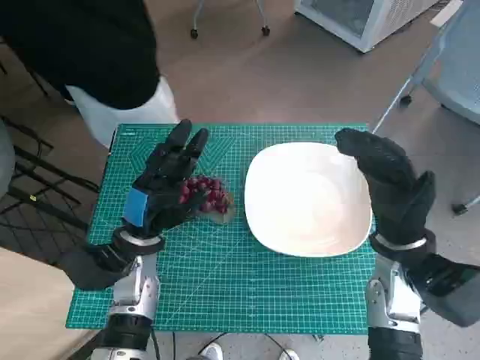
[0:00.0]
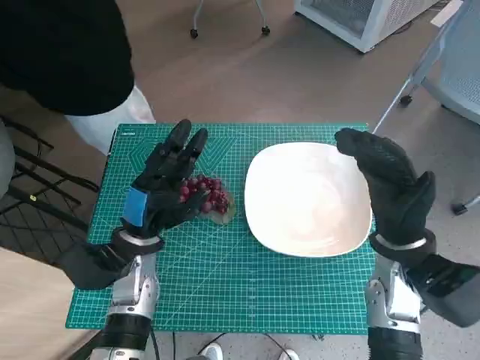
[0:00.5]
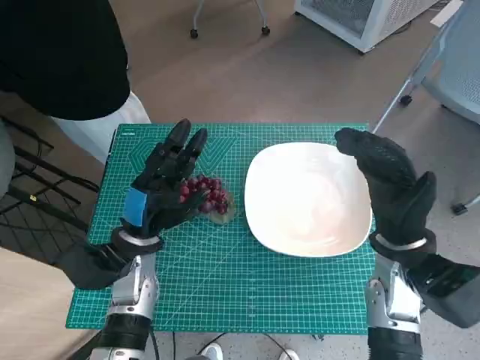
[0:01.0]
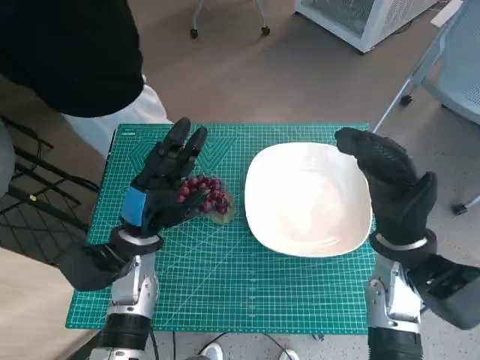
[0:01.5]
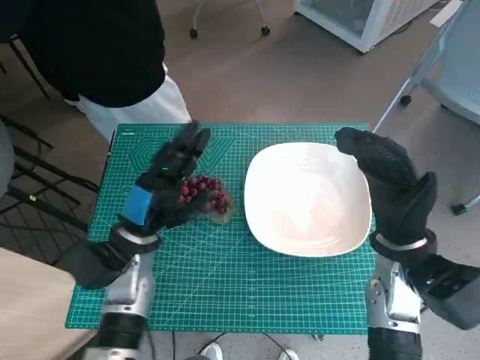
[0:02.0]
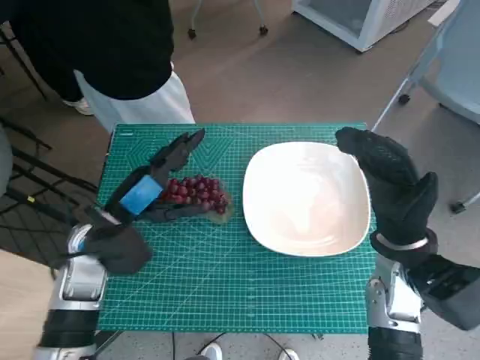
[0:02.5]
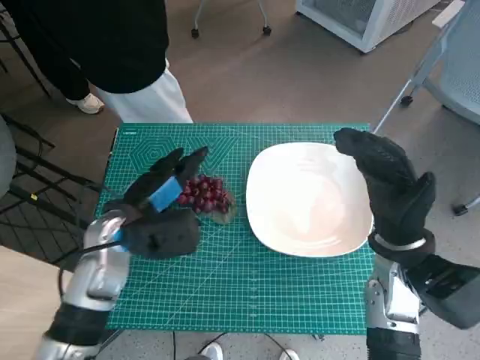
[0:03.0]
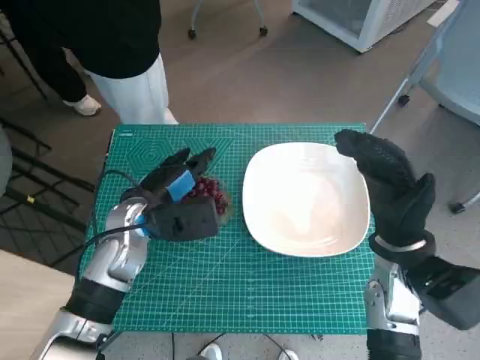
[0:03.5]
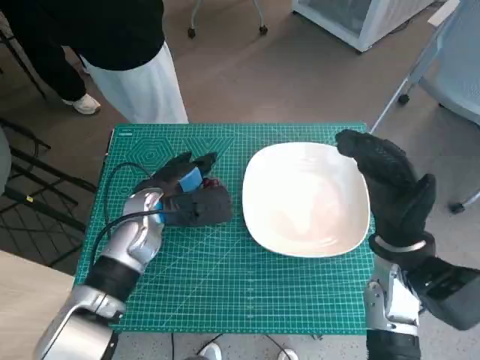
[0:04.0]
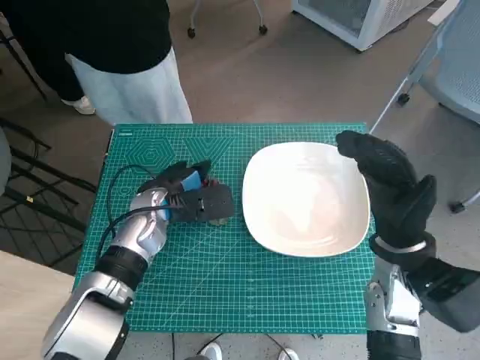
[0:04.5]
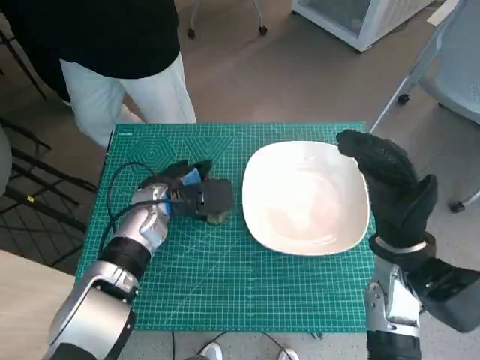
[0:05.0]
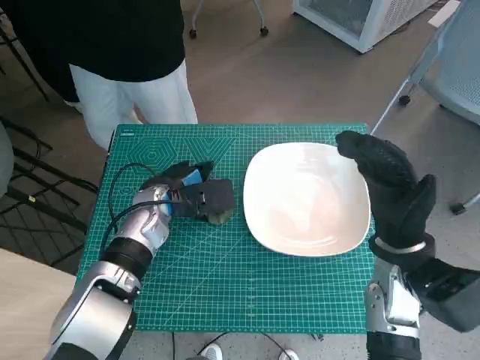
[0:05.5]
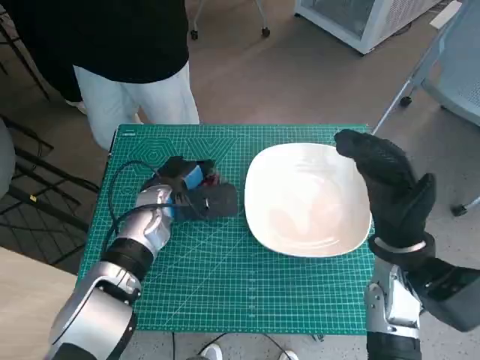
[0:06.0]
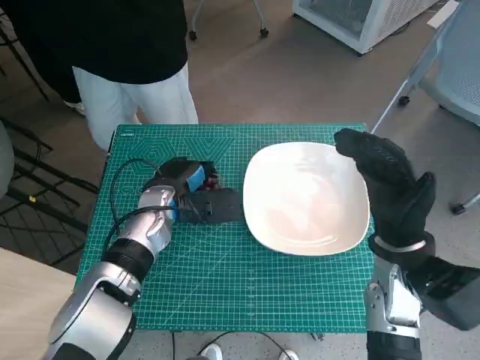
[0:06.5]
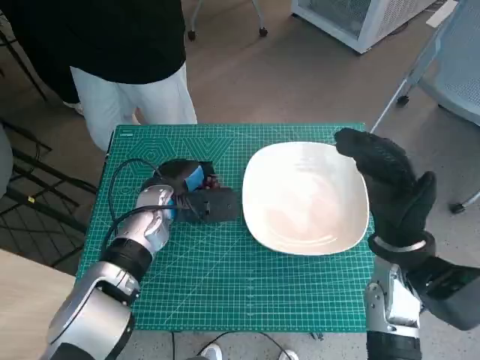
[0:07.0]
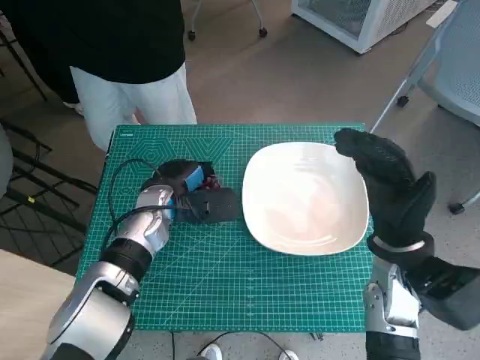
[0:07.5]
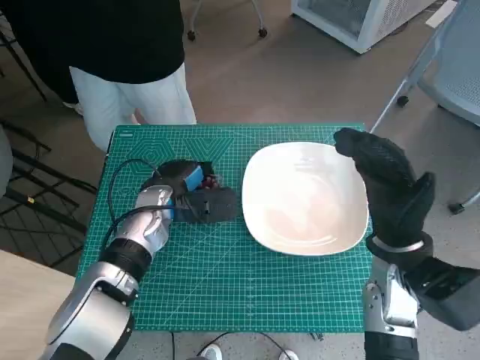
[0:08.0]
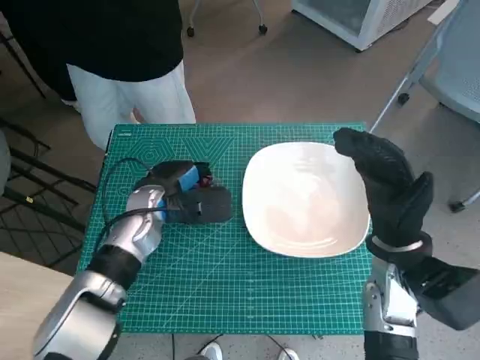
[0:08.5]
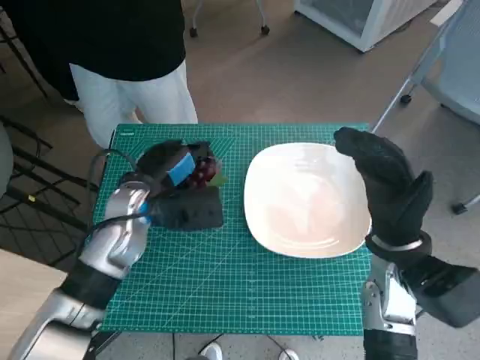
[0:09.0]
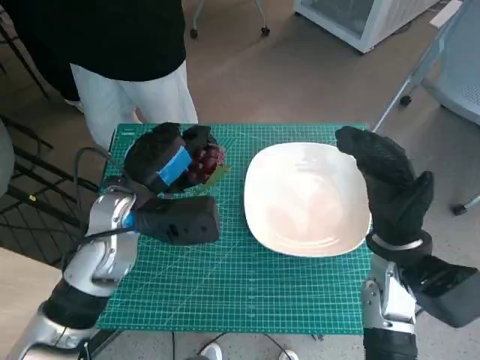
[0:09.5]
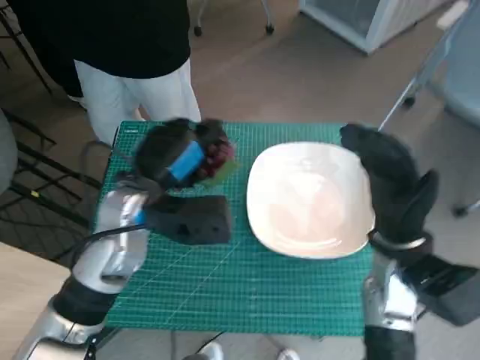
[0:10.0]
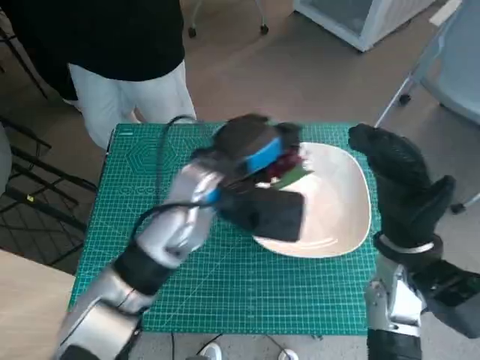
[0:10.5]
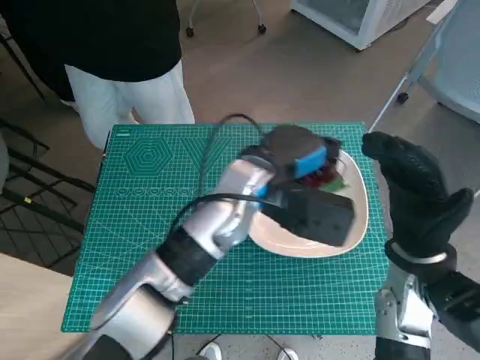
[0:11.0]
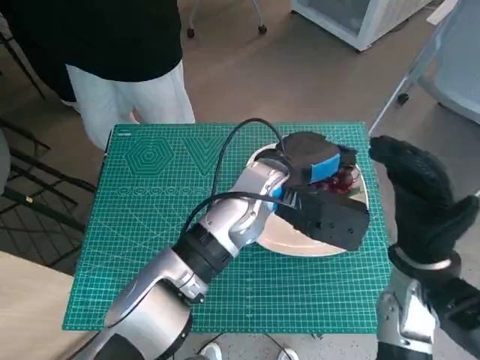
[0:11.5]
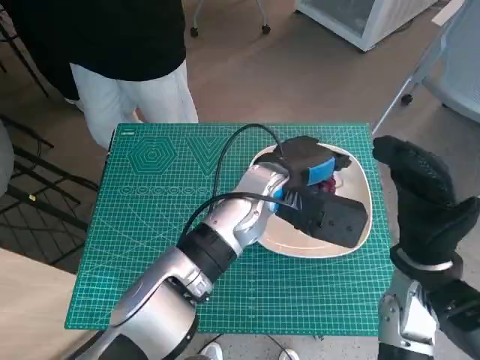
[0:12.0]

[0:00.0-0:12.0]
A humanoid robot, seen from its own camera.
Task of the whole recording: Pick up the grapes and put them on the plate.
Step, 0:00.0 to 0:06.5: Grasp the grapes with left hand.
0:02.0 to 0:04.0: The left hand moves forward, about 5 cm.
0:04.0 to 0:08.0: The hands move only a little.
0:08.0 to 0:10.0: The left hand is displaced upward and backward by some 10 cm.
0:10.0 to 0:12.0: The left hand heads to the right, covering roughly 15 cm.

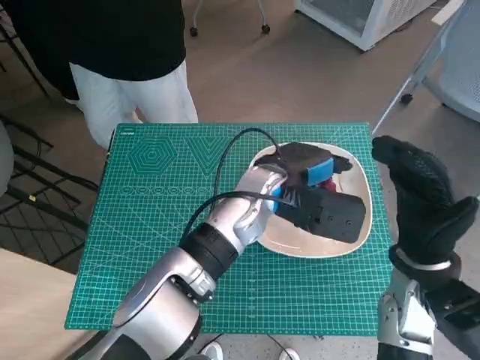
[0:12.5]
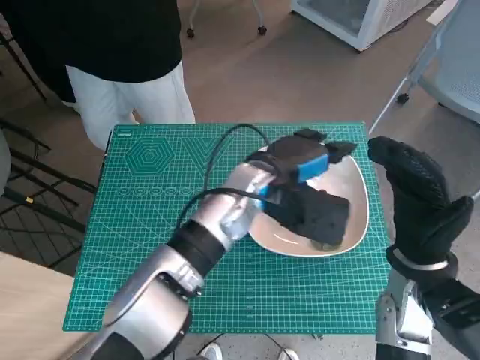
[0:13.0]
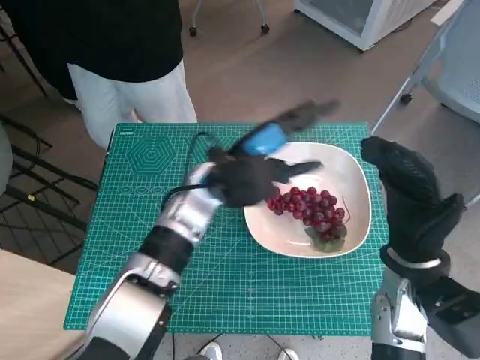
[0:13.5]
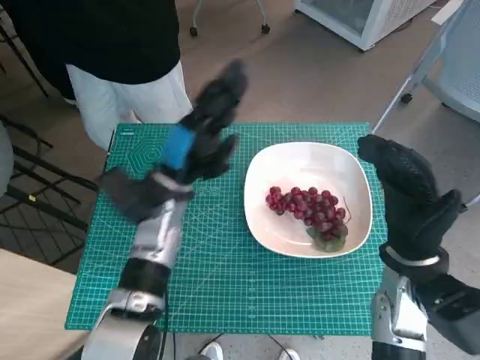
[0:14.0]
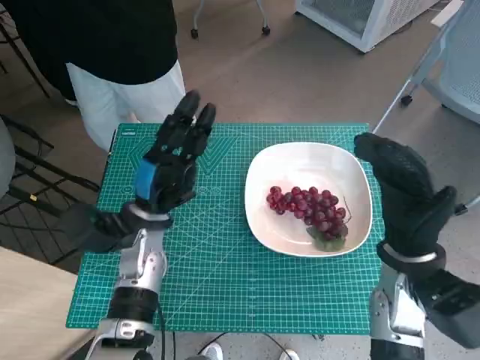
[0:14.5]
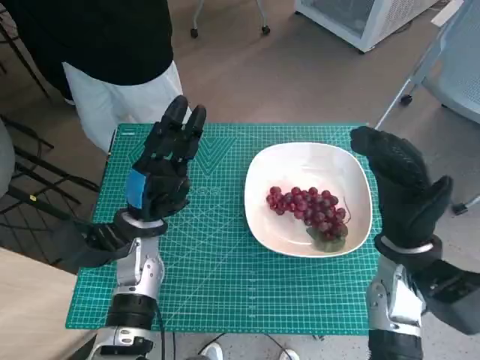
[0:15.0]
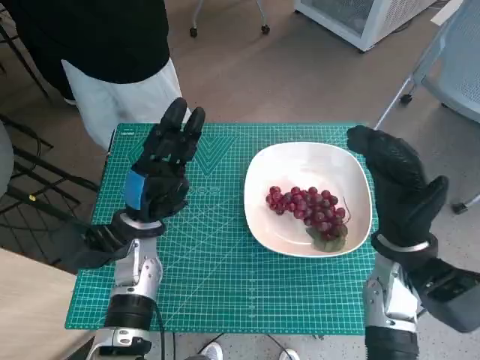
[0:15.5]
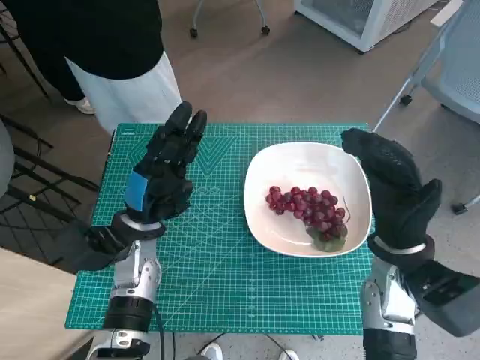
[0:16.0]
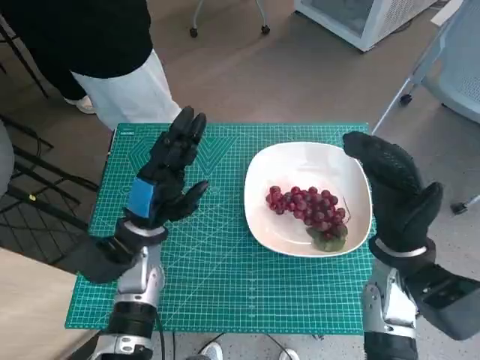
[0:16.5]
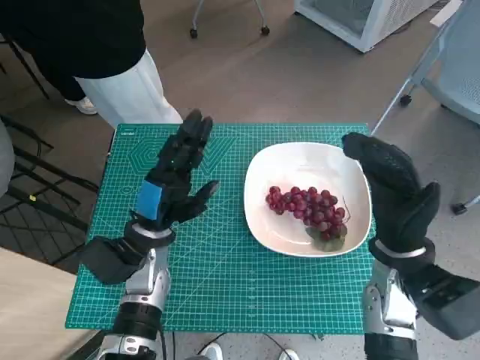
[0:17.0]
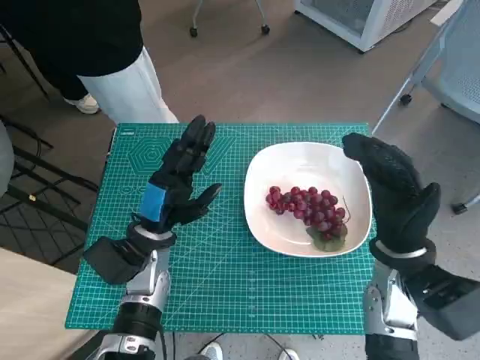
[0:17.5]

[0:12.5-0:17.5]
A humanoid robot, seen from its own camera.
Task of the whole recording: Pick up the grapes and put them on the plate.
0:12.5 to 0:15.0: The left hand goes approximately 20 cm to the left and downward.
0:15.0 to 0:17.5: There are only small adjustments of the hands.

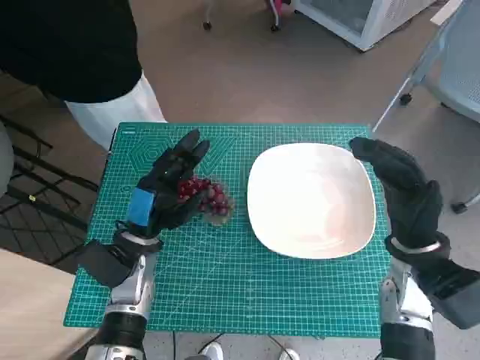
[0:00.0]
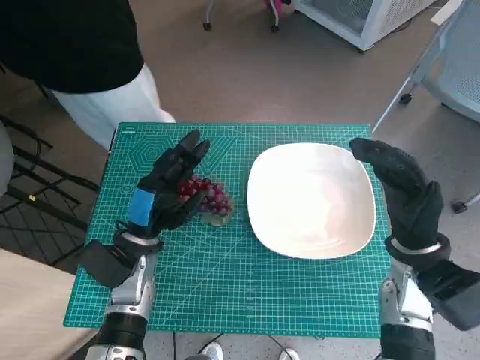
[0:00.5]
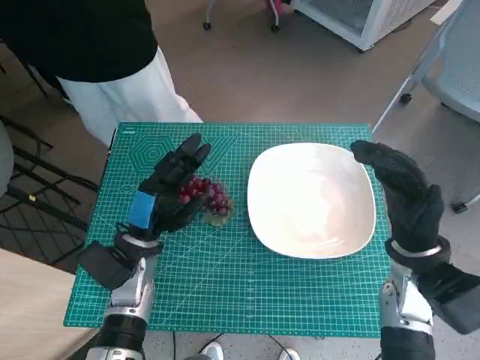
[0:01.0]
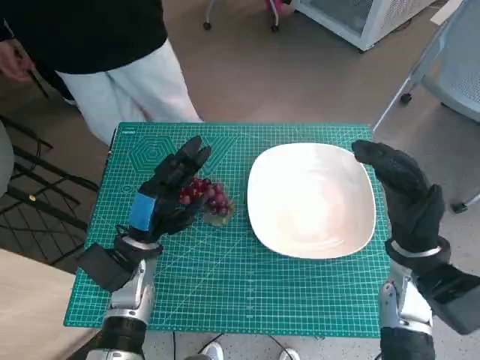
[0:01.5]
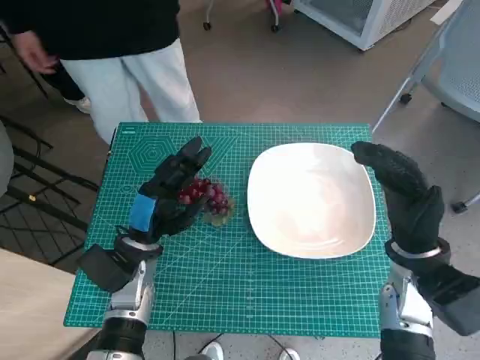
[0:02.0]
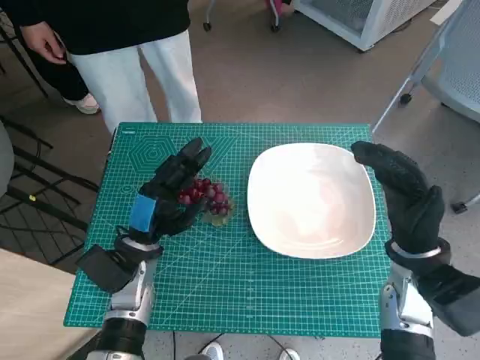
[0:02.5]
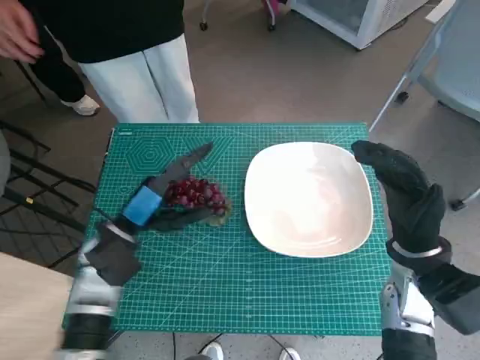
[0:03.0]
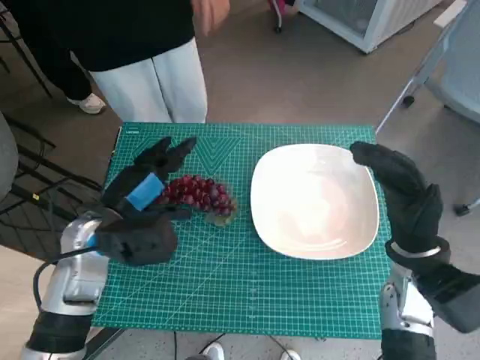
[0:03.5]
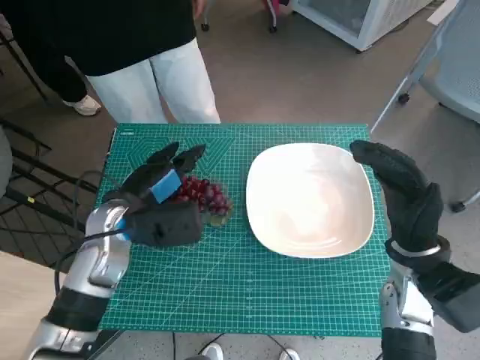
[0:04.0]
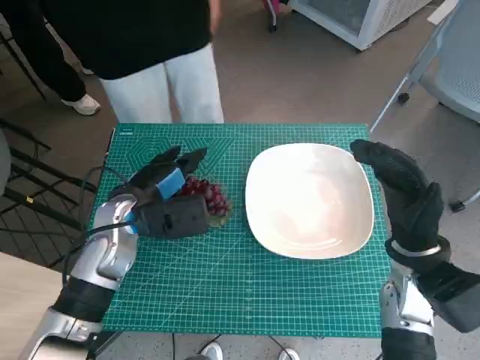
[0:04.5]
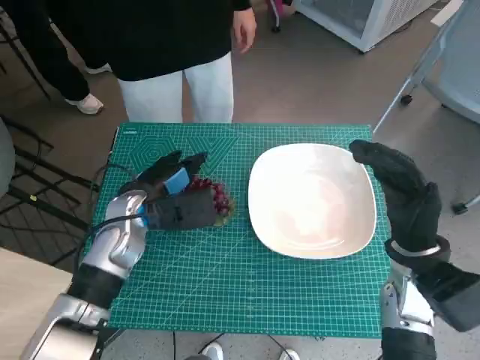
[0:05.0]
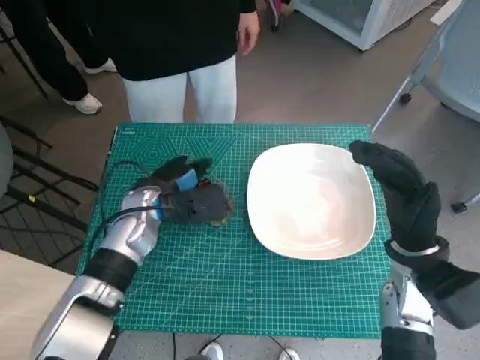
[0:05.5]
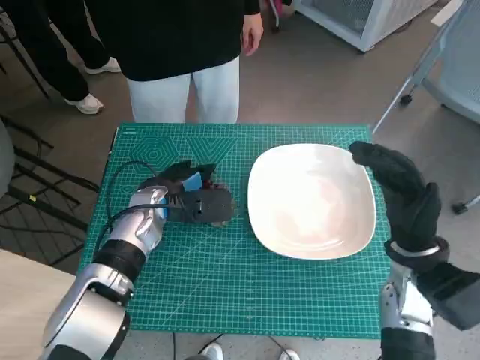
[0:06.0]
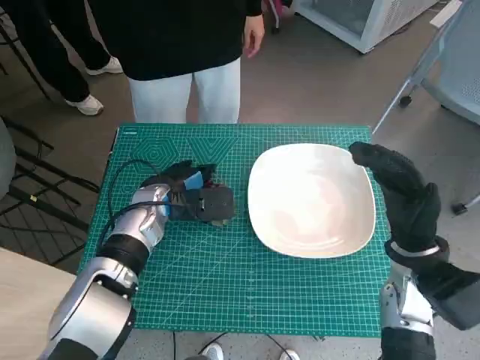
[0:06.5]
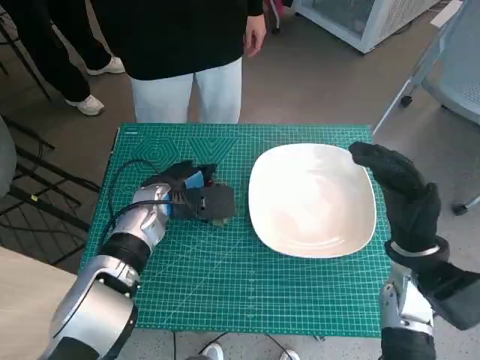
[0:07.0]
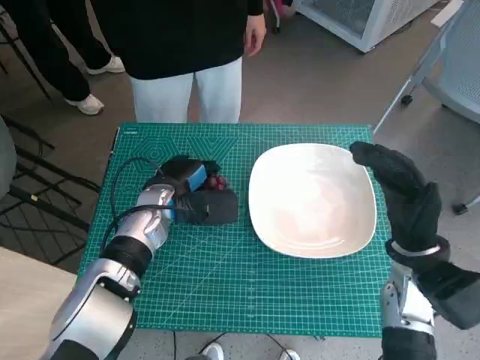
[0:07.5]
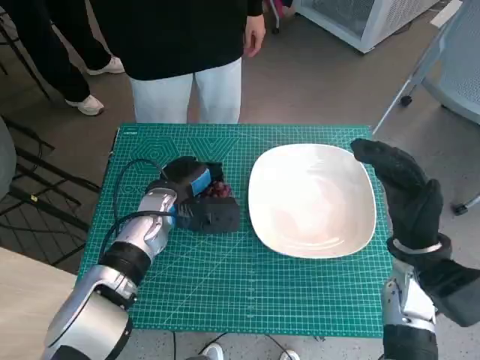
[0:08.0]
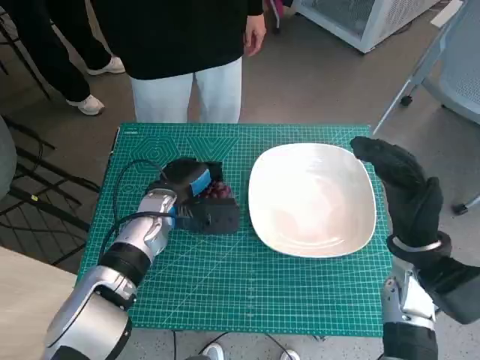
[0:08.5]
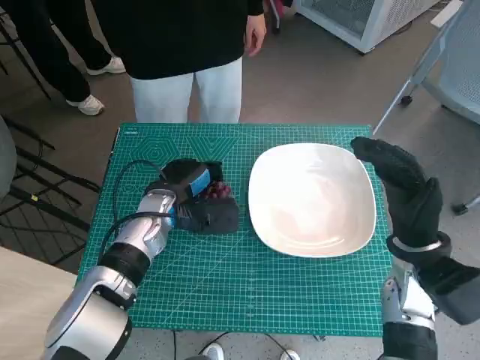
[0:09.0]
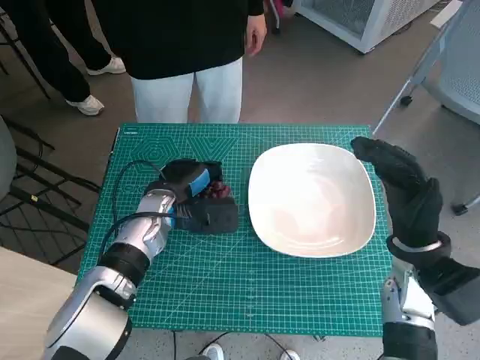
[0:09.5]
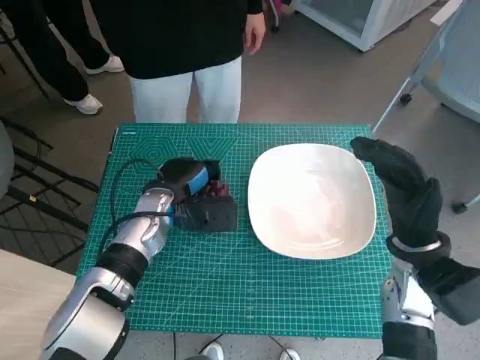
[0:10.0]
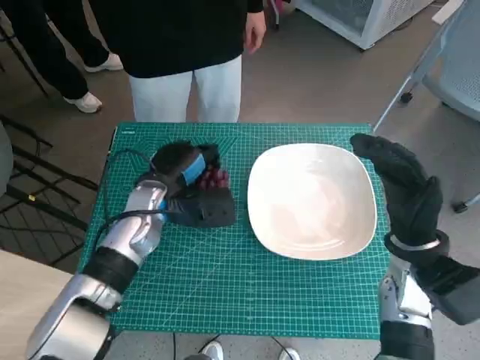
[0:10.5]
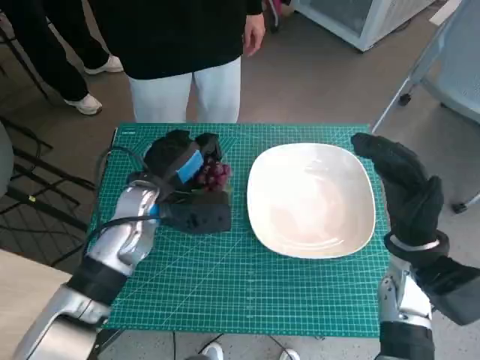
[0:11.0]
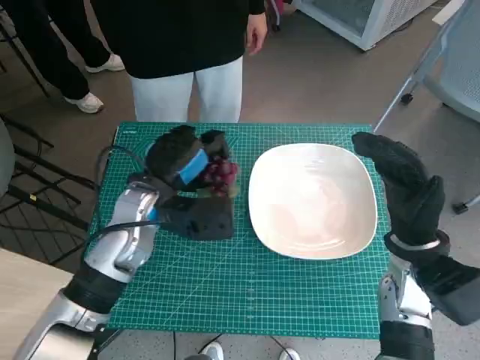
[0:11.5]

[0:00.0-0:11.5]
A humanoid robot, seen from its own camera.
Task of the whole recording: Pick up the grapes and put them on the plate.
Step, 0:00.0 to 0:08.5: Grasp the grapes with left hand.
0:02.0 to 0:04.0: The left hand heads upward, covering some 5 cm.
0:04.0 to 0:06.0: The left hand moves forward, about 5 cm.
0:06.0 to 0:09.5: The hands move only a little.
0:09.5 to 0:11.5: The left hand heads upward, covering approximately 5 cm.
